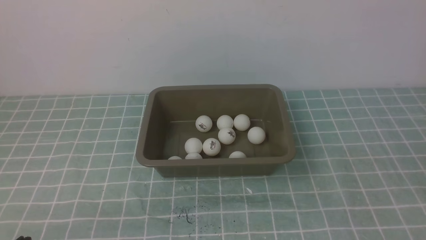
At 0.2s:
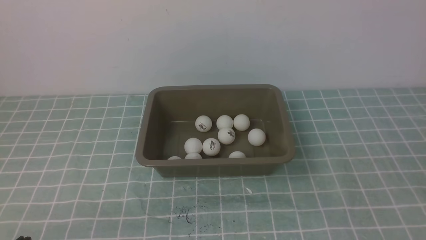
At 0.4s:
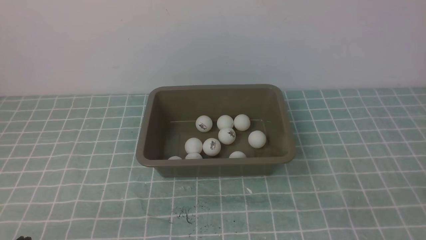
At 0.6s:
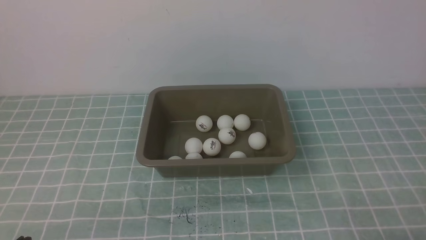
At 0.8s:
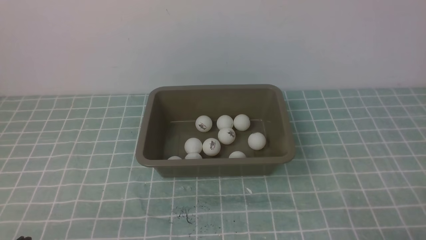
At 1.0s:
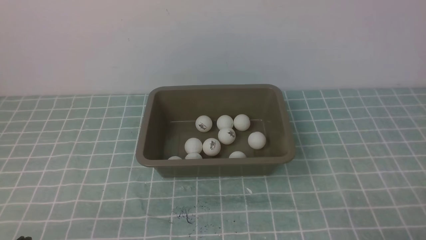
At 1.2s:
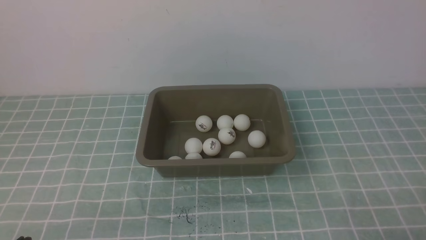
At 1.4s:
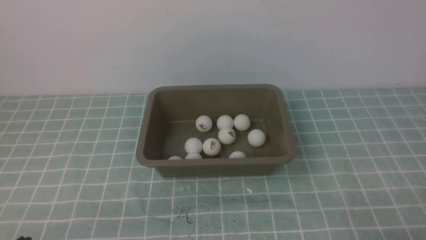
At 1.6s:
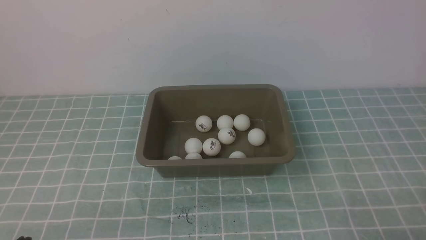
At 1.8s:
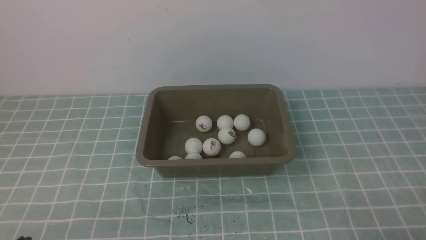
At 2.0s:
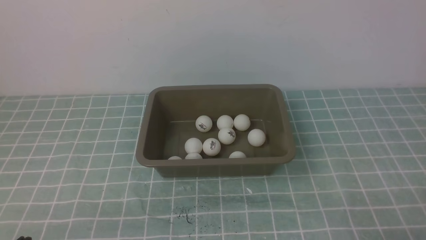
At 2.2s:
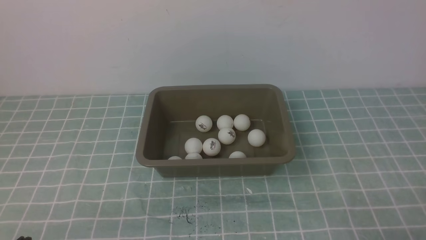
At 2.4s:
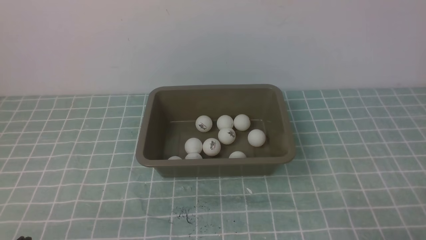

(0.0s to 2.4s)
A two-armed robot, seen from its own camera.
1.2s - 2.4s: Both grippers stay about where they are.

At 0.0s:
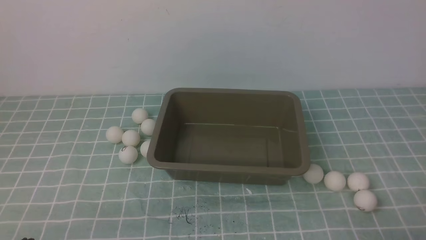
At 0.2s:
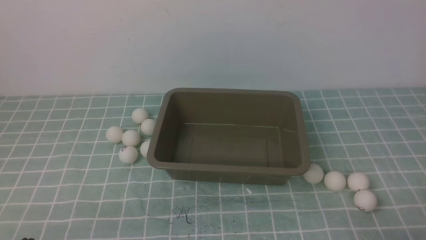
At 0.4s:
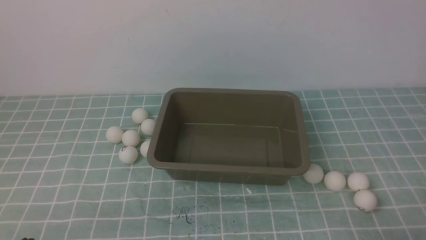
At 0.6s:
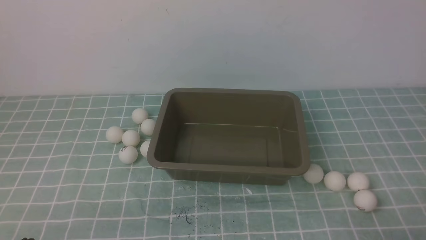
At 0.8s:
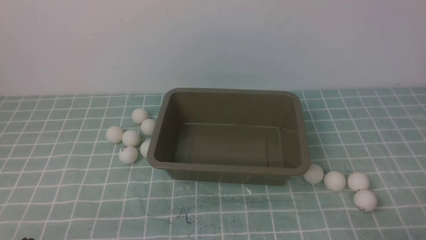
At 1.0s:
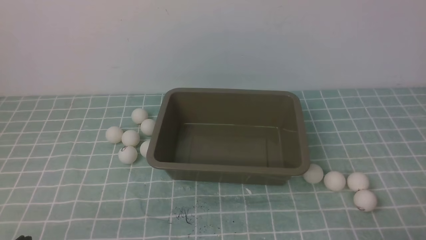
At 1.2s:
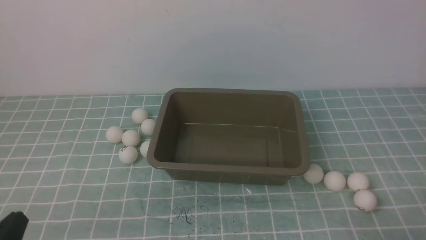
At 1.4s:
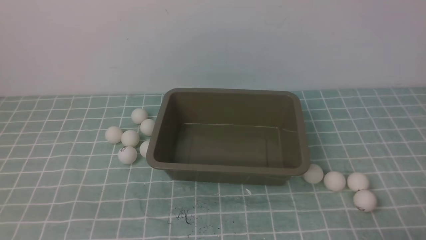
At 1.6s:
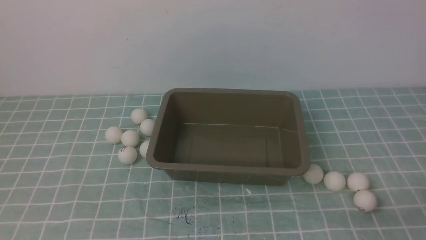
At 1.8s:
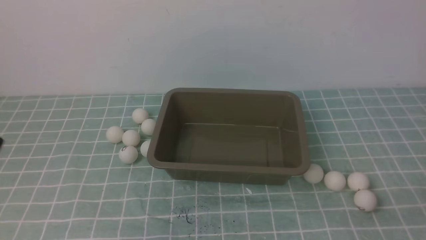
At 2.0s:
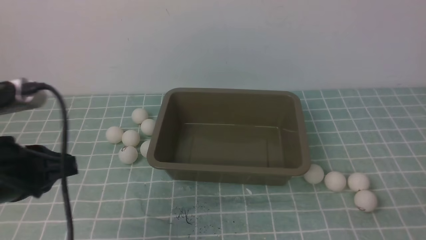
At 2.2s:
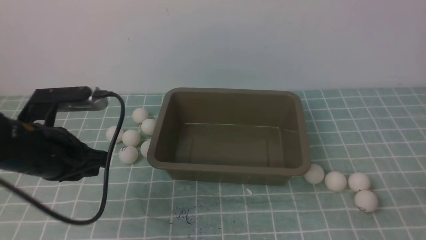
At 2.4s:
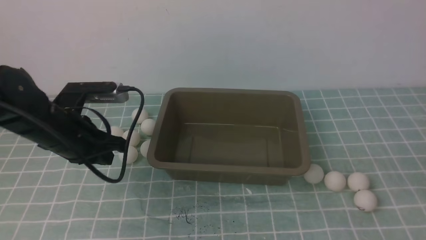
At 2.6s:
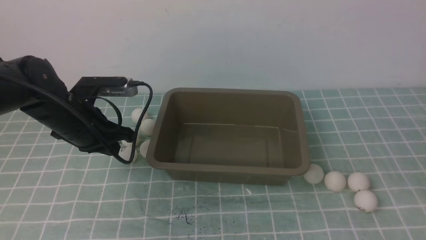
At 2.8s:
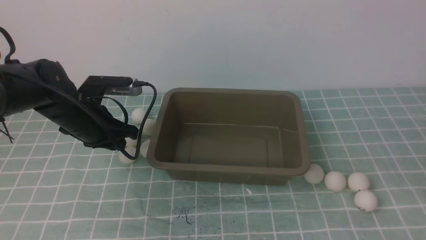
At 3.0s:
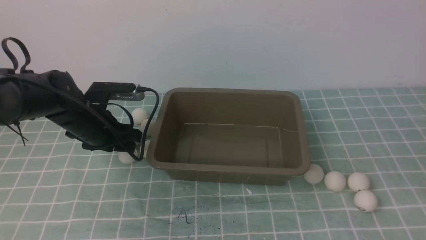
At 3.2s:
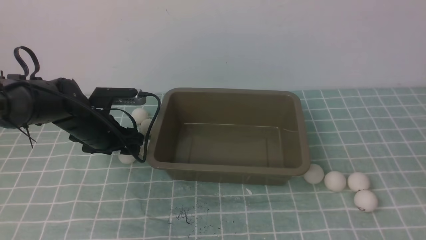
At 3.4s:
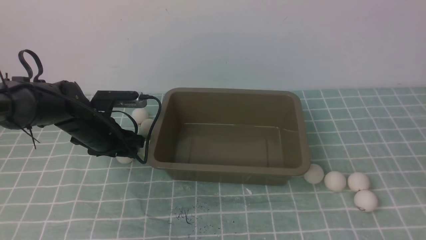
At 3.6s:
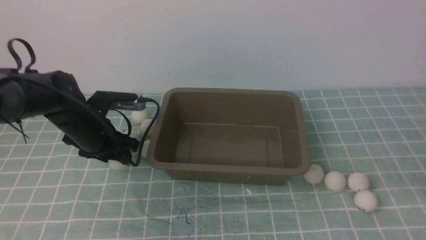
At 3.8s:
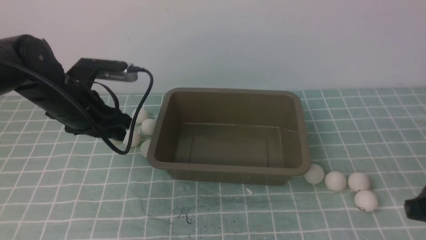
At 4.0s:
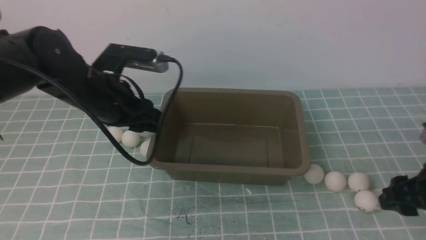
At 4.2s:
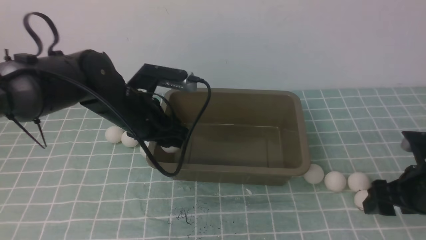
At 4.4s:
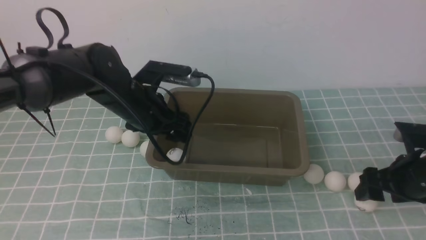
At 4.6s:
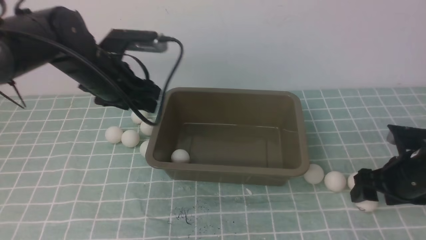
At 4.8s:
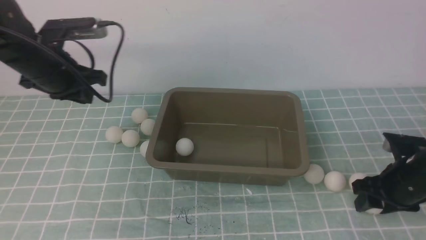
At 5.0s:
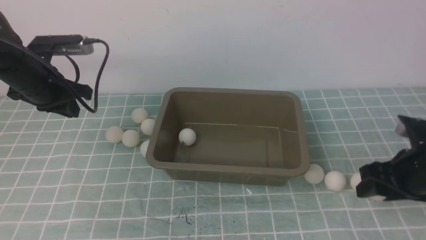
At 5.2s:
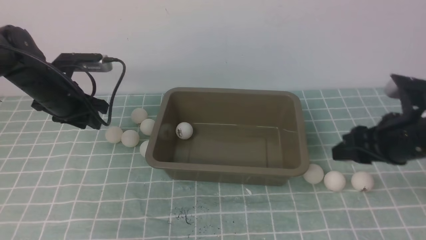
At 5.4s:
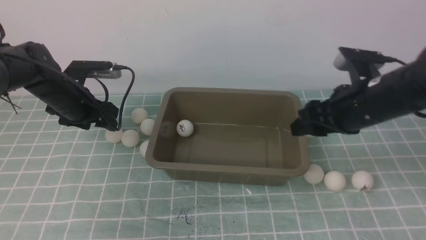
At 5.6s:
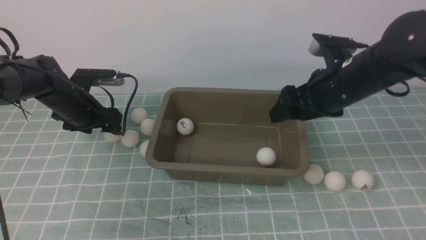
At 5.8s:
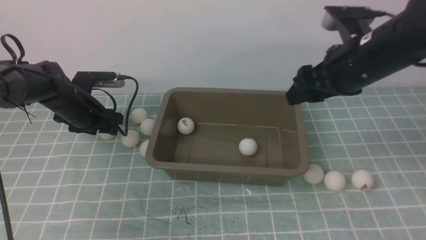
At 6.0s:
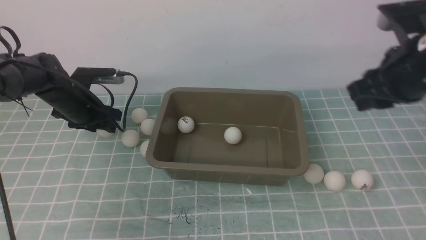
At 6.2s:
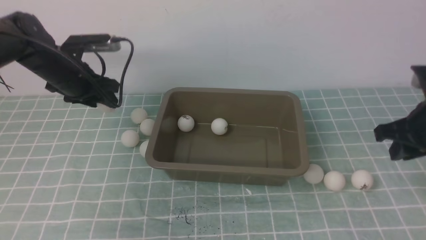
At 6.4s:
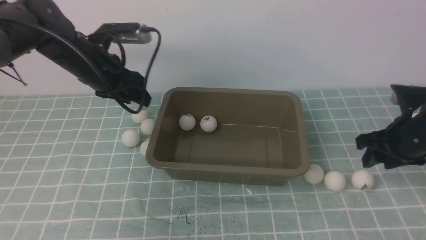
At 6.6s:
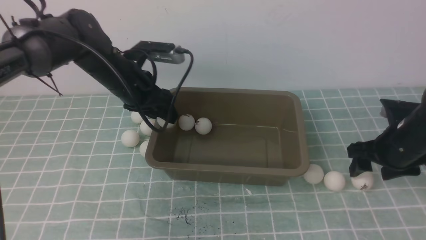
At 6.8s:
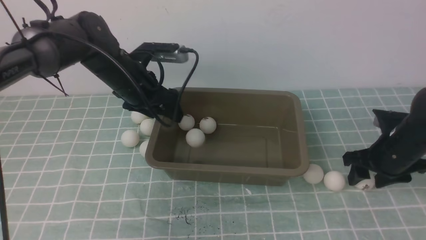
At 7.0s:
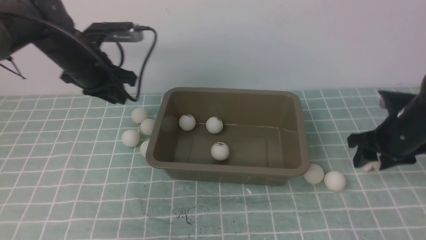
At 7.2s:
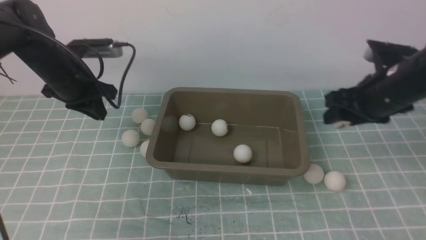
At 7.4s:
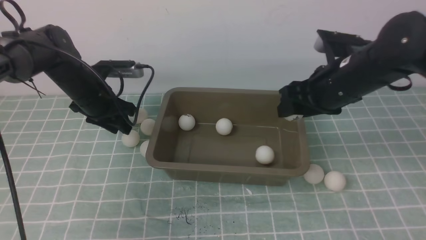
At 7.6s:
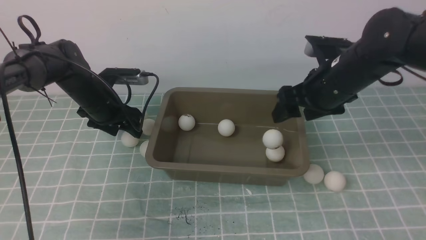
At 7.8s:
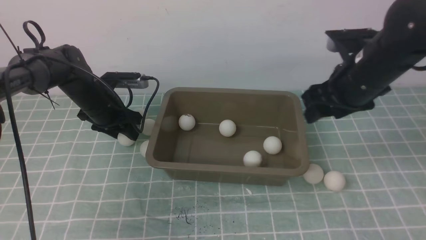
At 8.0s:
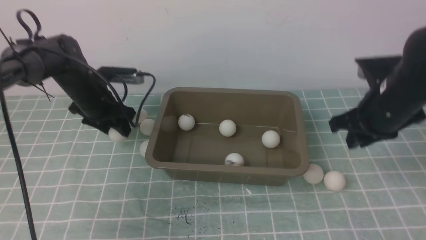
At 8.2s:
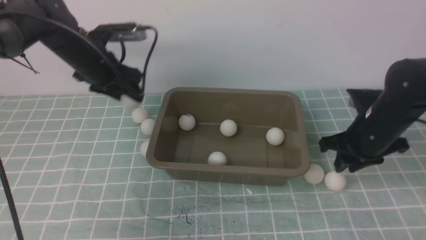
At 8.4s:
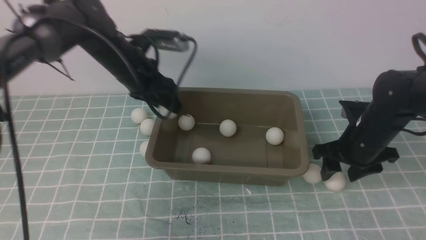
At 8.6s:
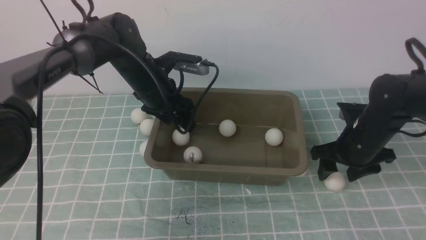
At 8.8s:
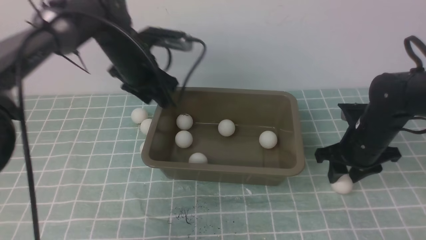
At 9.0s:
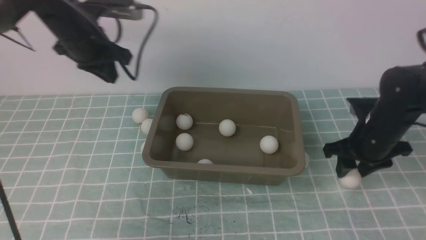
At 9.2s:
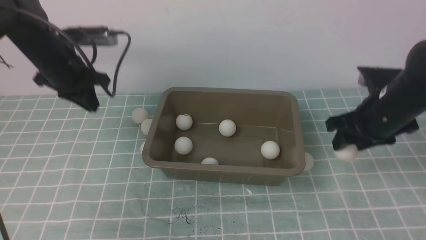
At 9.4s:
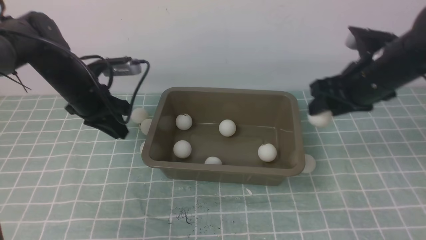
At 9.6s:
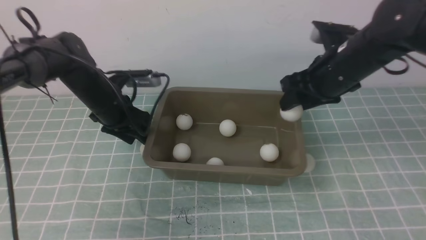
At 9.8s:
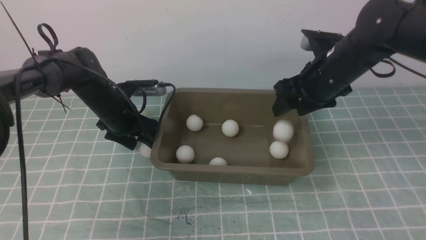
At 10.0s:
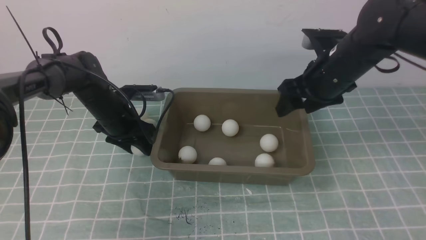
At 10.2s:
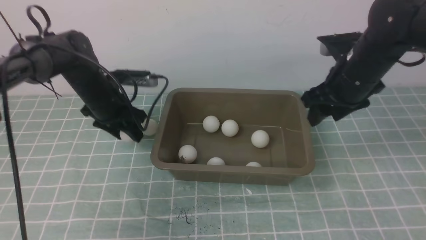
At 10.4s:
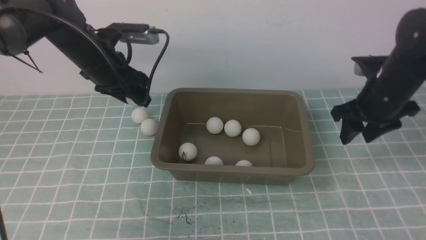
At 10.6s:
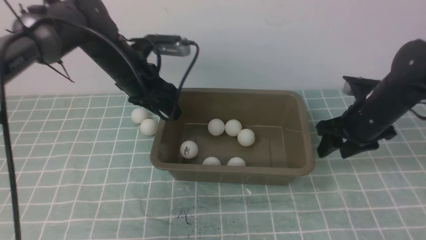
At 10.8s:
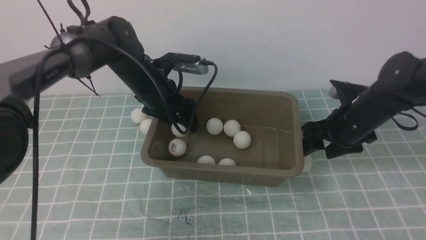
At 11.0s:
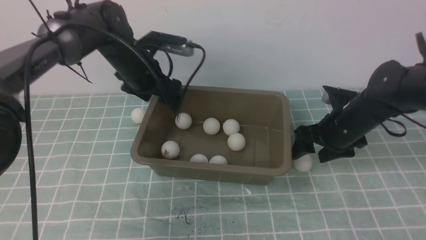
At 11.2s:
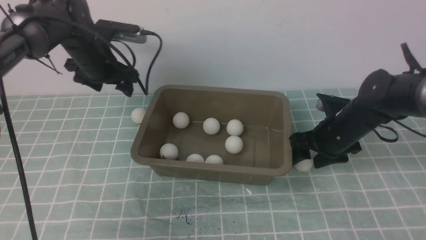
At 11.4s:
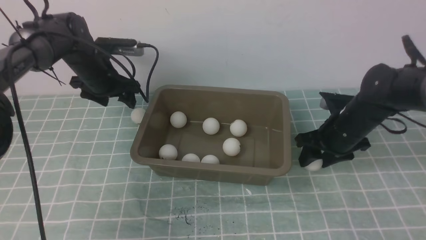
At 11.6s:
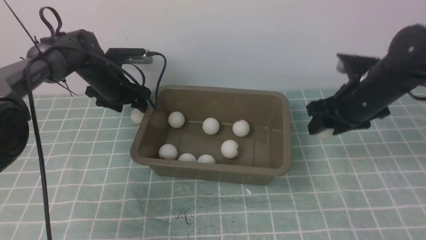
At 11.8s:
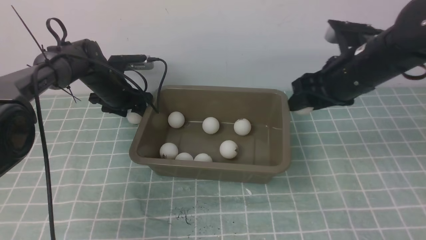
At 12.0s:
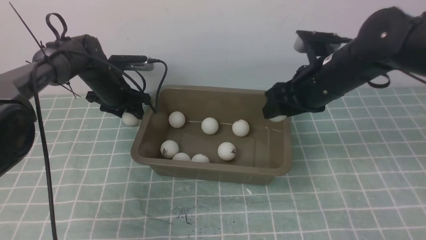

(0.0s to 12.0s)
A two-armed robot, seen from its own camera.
Step, 0.0s - 3.6s: use the left arm to clamp the table tennis ball closest to it.
Step, 3.8s - 4.2s: use the left arm to put the table tennis ball into the box.
Step, 4.4s - 4.8s: use the right arm to clamp the table tennis ball closest to it.
Step, 5.0s - 5.4s: use the right arm to put the table tennis ball into the box.
Step, 5.6s - 6.2s: use the left arm to clamp the table tennis ball closest to it.
Step, 6.4s - 6.8s: use the left arm to put the table tennis ball into the box.
Step, 7.2s - 7.8s: use the right arm to put the table tennis ball into the box.
Step, 8.0s - 8.2s: use the left arm to clamp the table tennis ball closest to it.
Step, 8.4s - 8.6s: use the left arm to put the table tennis ball into the box.
Step, 8.8s - 9.2s: use the right arm to clamp the table tennis ball closest to it.
Step, 9.4s - 9.8s: use the right arm to put the table tennis ball into the box.
Step, 10.0s - 10.2s: use the left arm to clamp the table tennis ball closest to it.
Step, 10.6s - 10.8s: use the left arm to put the table tennis ball into the box.
Step, 11.0s - 11.6s: use the right arm to clamp the table tennis ball closest to it.
1.6s - 3.0s: The right gripper moves upward, approximately 15 cm; the left gripper heads forward, covering roughly 30 cm, and opens up.
3.0s - 4.4s: The right gripper travels forward and downward by some 20 cm, and opens; the left gripper moves upward and to the right, approximately 10 cm.
4.4s - 6.0s: The right gripper travels upward by approximately 15 cm, and closes. Meanwhile the left gripper travels to the left, forward and downward by some 15 cm, and closes, then opens again.
6.0s - 7.6s: The left gripper reaches some 10 cm to the right, then returns, and closes and opens again, while the right gripper shifts some 5 cm to the left, travels downward and back again, about 15 cm each way, and opens up.
7.6s - 9.0s: The right gripper is displaced downward and to the right by some 10 cm; the left gripper heads upward, covering about 10 cm, and closes its fingers.
9.0s - 10.4s: The left gripper moves about 15 cm downward and comes back, and opens.
10.4s - 12.0s: The right gripper moves to the left, some 10 cm, and reaches some 5 cm downward, then returns; the left gripper heads forward, covering about 5 cm, and opens, then closes again.

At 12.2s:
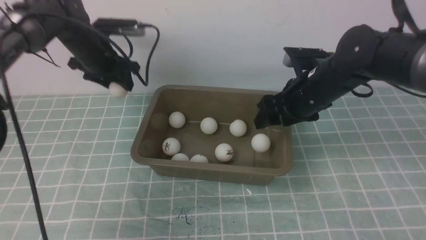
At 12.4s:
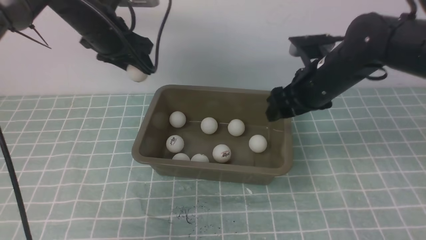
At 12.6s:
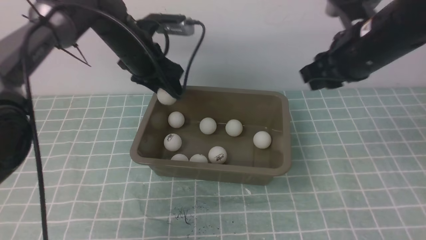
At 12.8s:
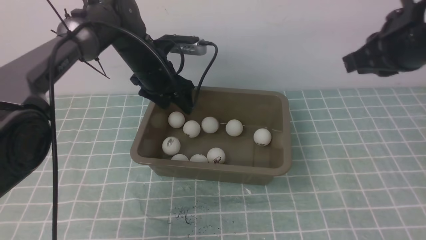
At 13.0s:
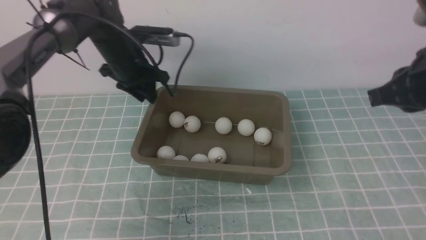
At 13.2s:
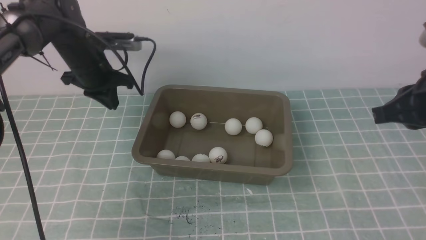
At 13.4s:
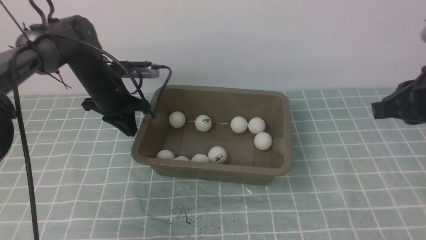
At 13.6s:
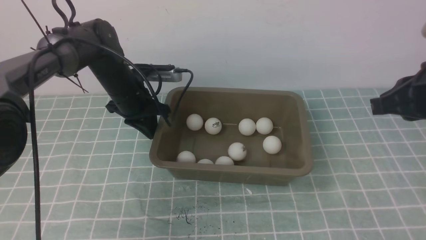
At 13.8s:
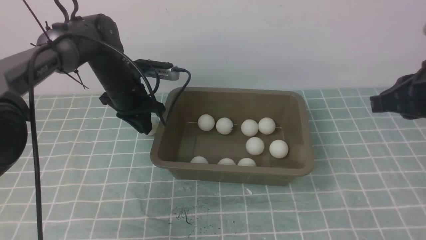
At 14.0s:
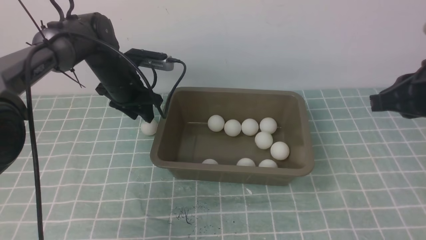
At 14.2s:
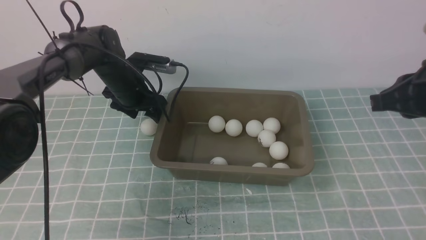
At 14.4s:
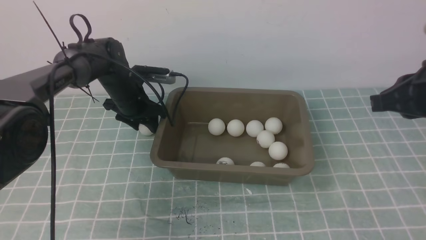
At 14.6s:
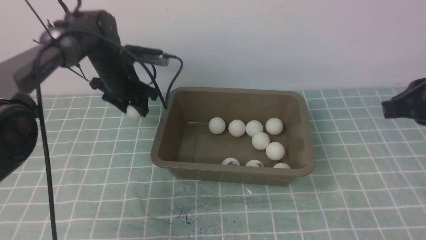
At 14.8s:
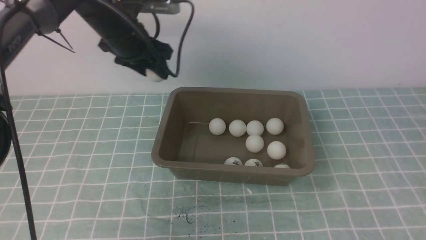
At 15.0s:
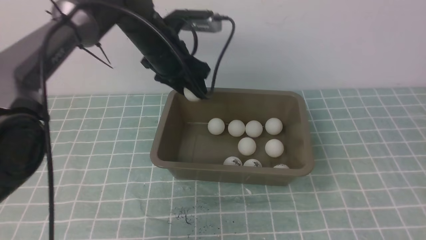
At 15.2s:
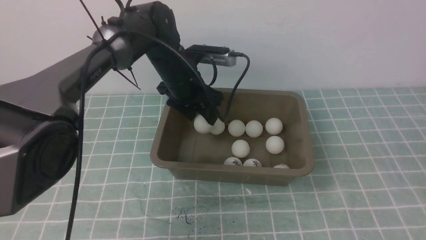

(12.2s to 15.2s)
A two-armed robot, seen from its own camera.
Step, 12.6s - 13.2s: use the left arm to put the table tennis ball into the box.
Step, 13.4s - 14.6s: use the left arm to clamp the table tennis ball closest to it.
12.2s - 13.8s: The left gripper moves downward, some 5 cm, and closes. The right gripper moves backward, to the right and upward, roughly 20 cm, and closes.
13.8s - 15.2s: The right gripper moves backward, some 20 cm; the left gripper shifts some 10 cm to the right, and opens its fingers.
